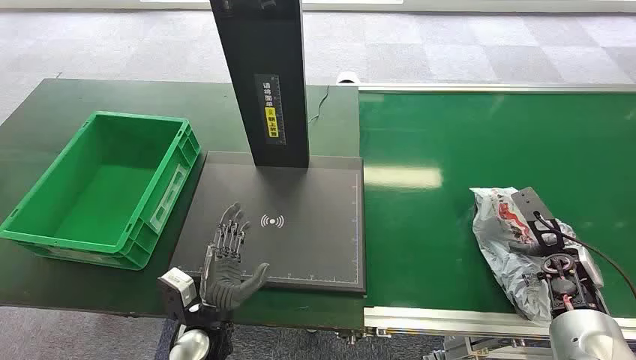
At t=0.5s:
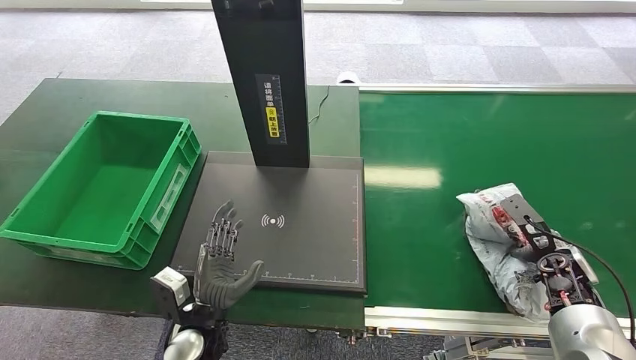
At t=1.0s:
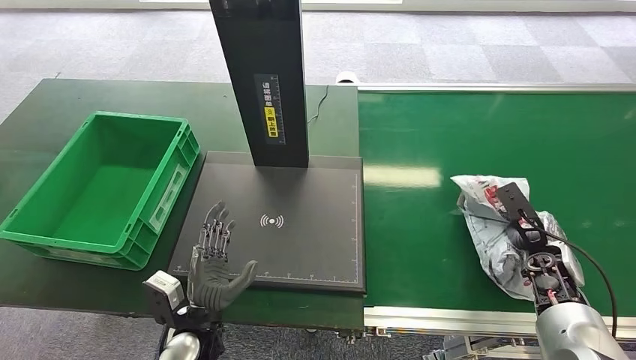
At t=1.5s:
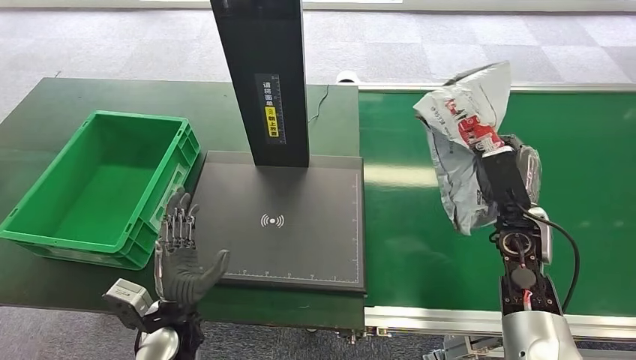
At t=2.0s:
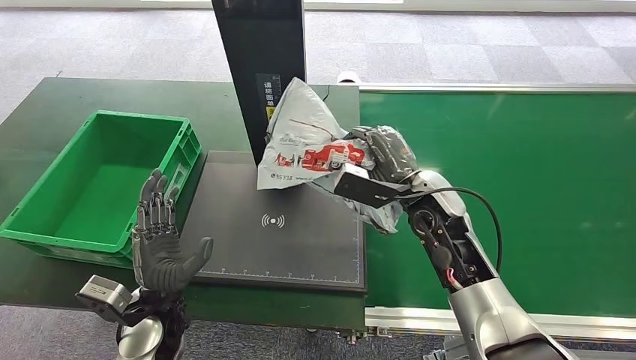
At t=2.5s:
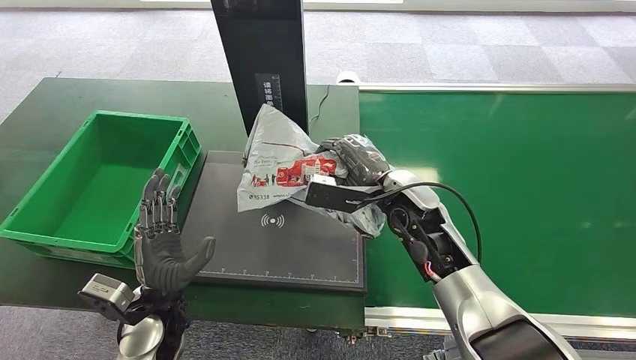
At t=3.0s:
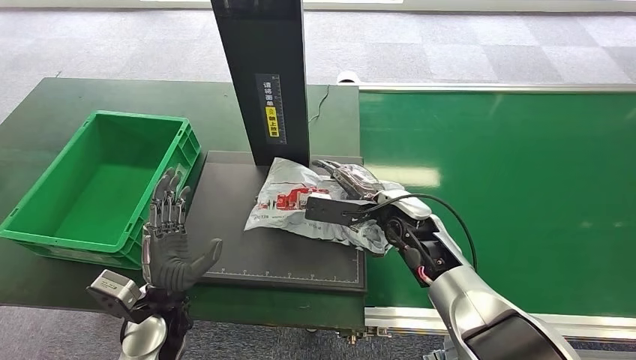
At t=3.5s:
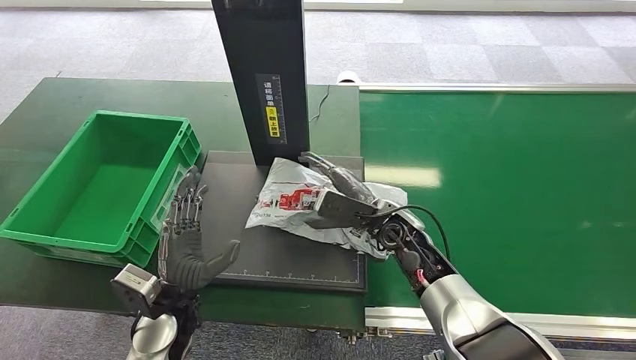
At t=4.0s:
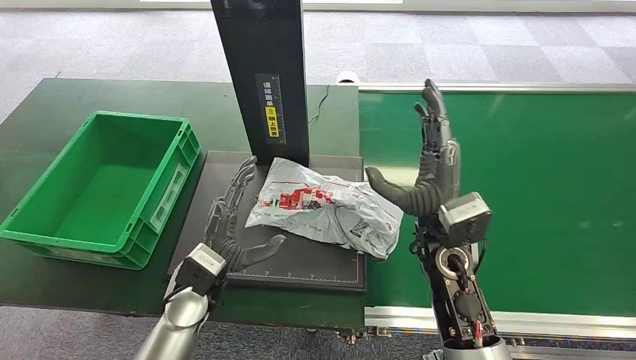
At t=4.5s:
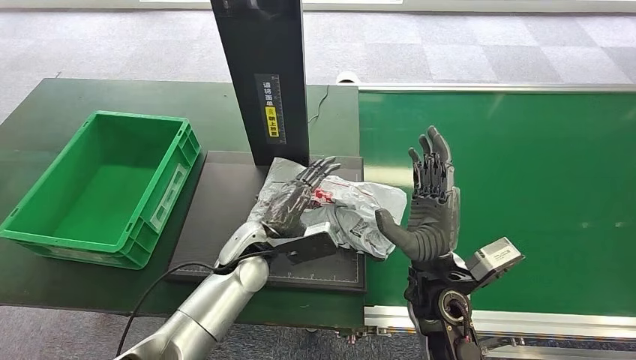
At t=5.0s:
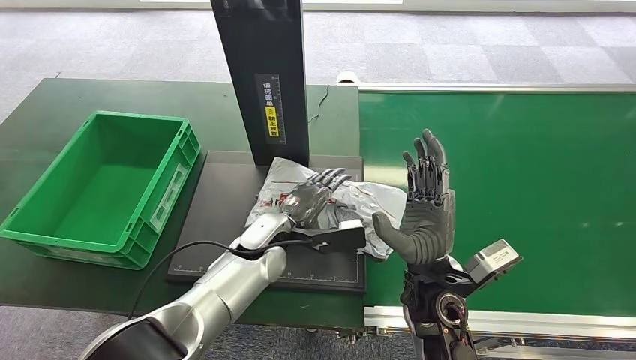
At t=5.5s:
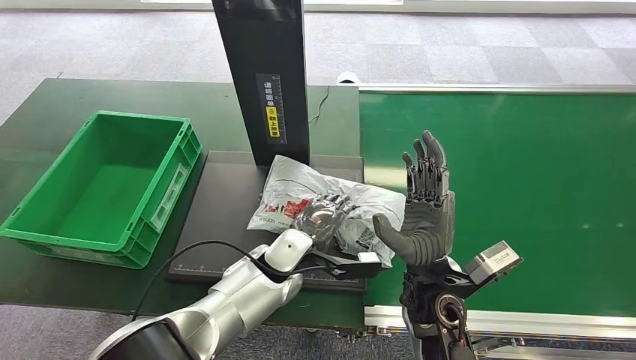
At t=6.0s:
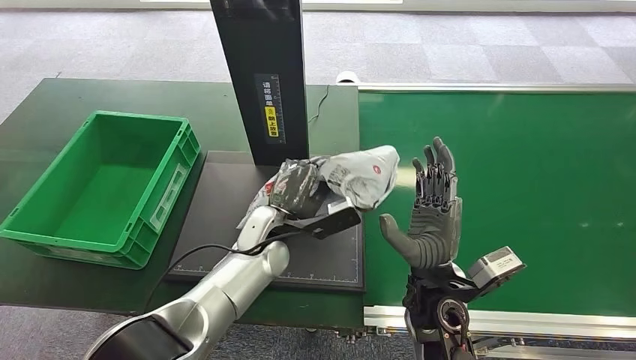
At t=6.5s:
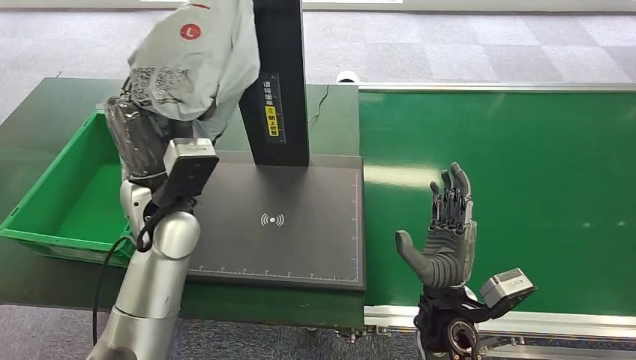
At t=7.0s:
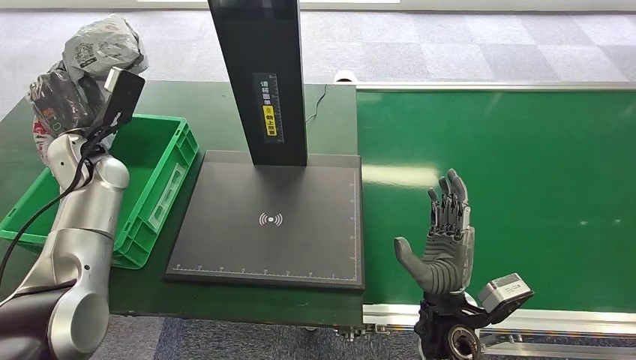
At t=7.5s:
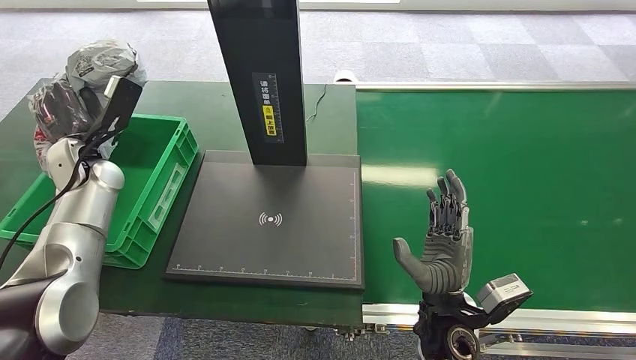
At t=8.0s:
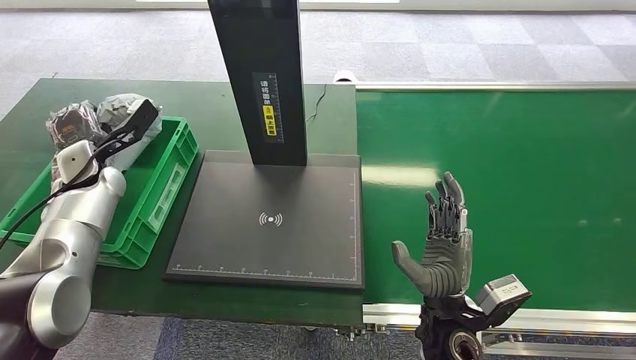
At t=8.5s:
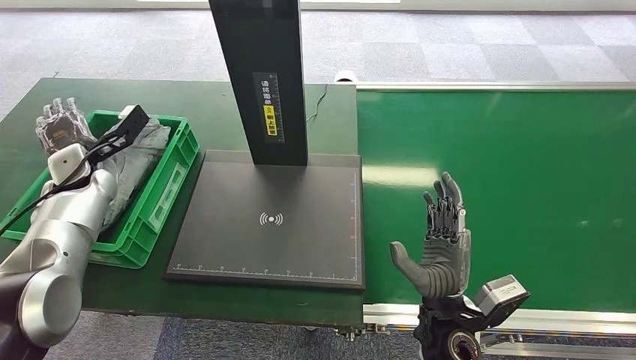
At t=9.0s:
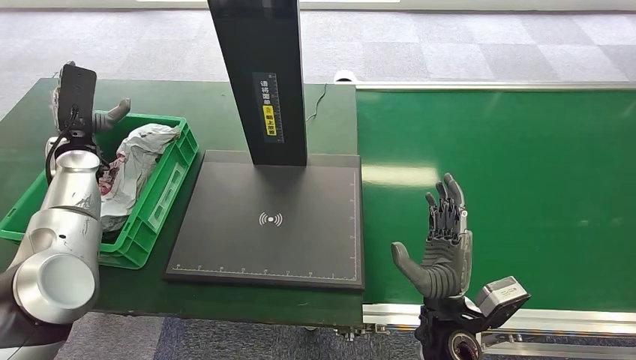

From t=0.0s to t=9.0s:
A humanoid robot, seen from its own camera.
Step, from t=0.0s to t=1.5s: Pick up the package from the conveyor belt.
Step, from t=2.0s to t=4.0s: Place the package onto the inbound machine.
Step, from t=4.5s to t=6.5s: Pick up the package from the inbound machine.
Step, from t=7.0s to t=9.0s: Place the package into the parcel locker.

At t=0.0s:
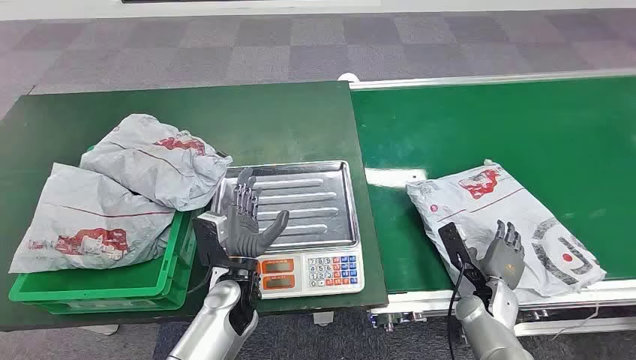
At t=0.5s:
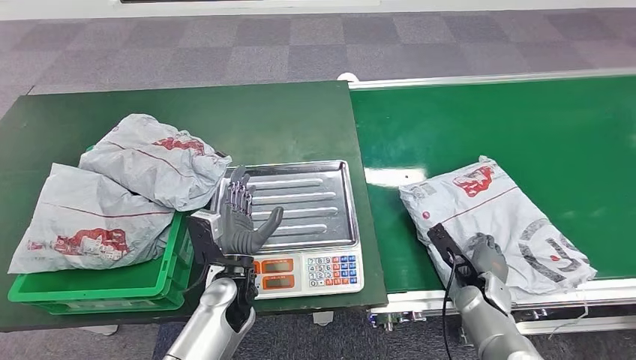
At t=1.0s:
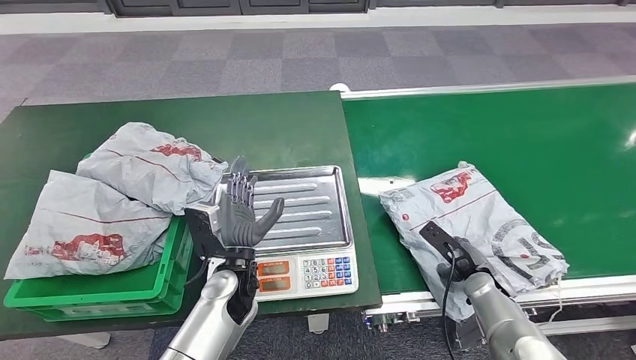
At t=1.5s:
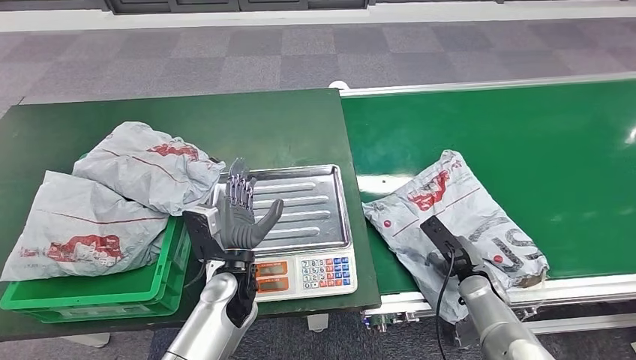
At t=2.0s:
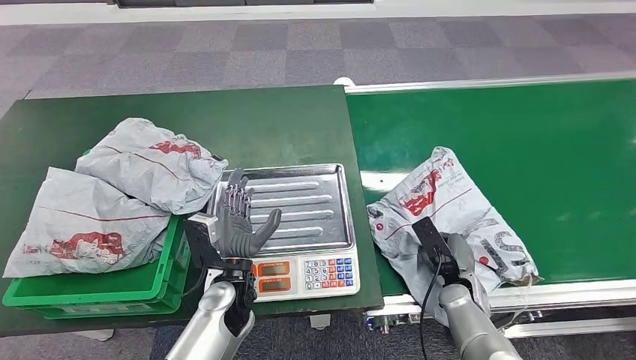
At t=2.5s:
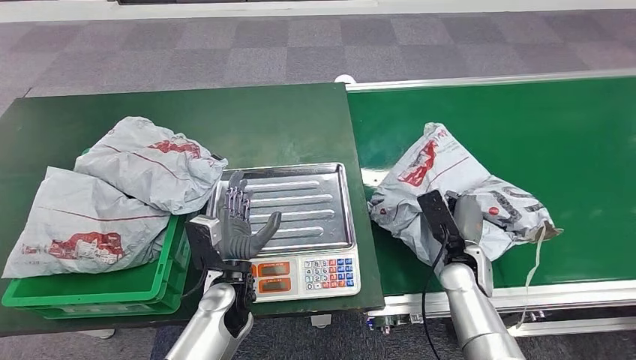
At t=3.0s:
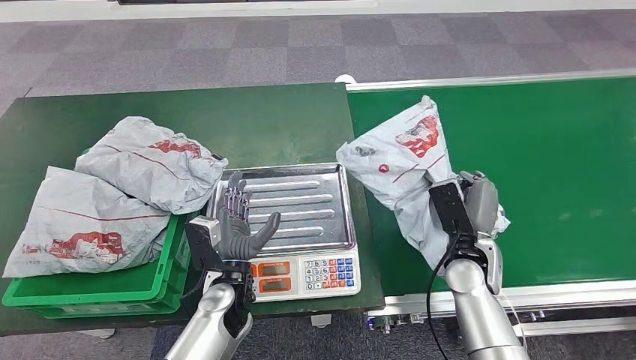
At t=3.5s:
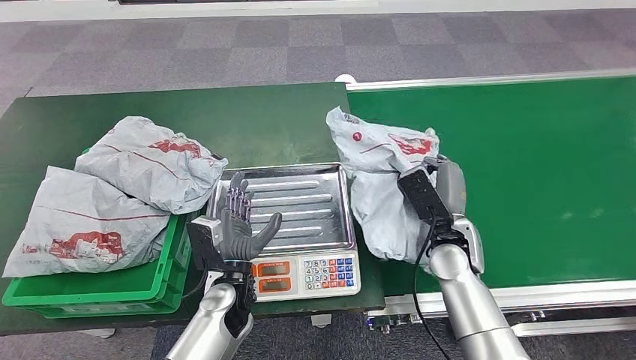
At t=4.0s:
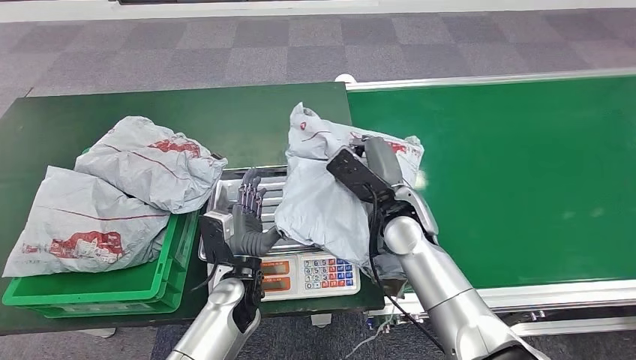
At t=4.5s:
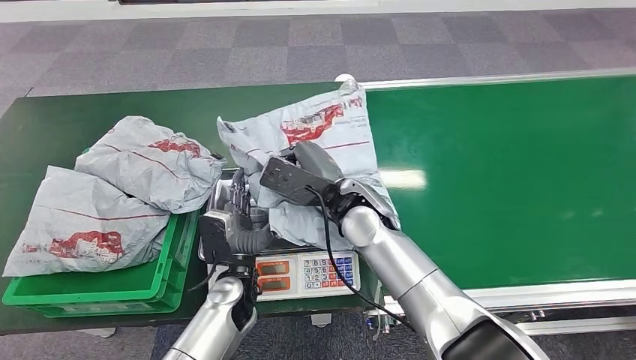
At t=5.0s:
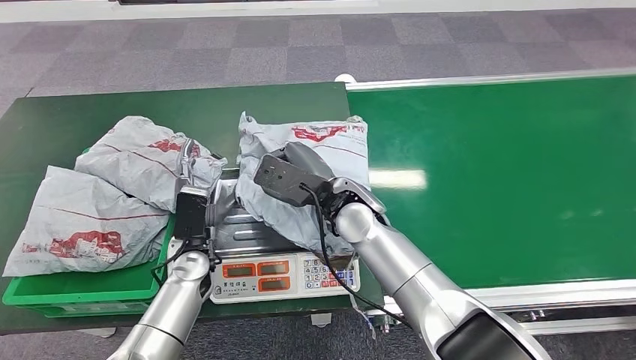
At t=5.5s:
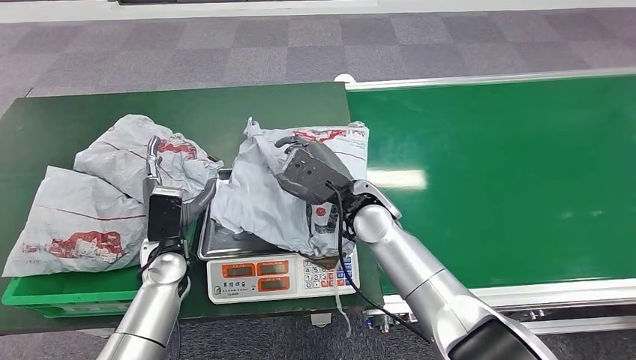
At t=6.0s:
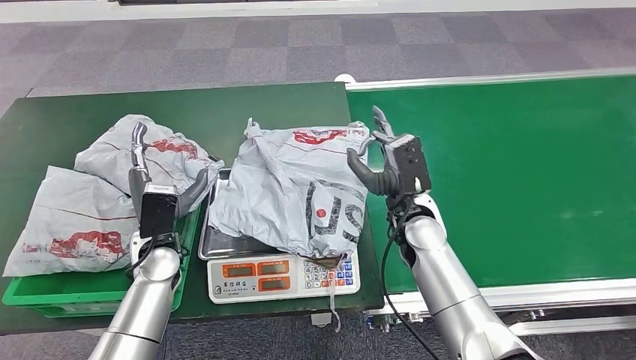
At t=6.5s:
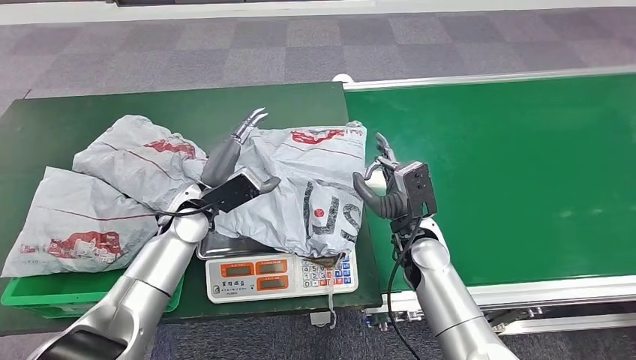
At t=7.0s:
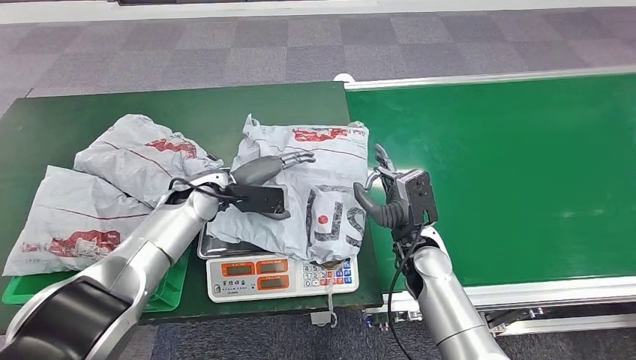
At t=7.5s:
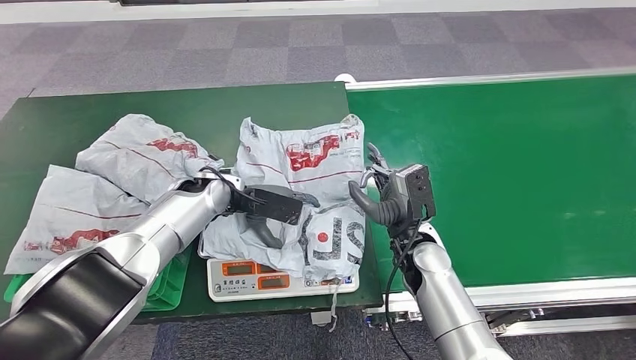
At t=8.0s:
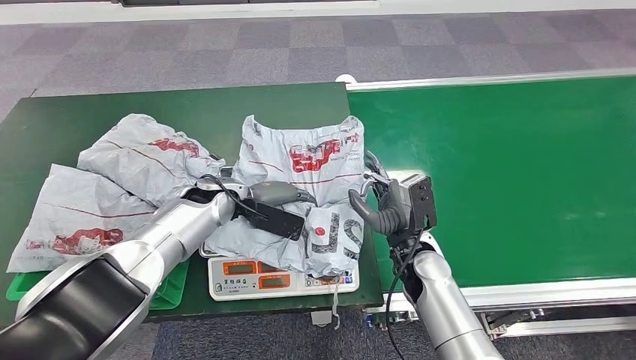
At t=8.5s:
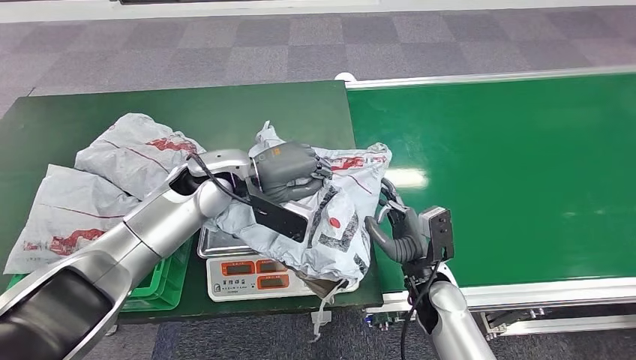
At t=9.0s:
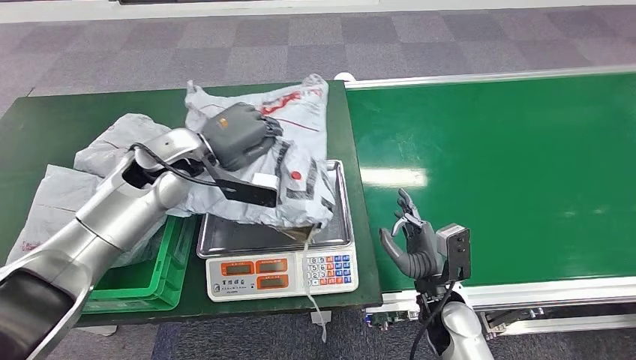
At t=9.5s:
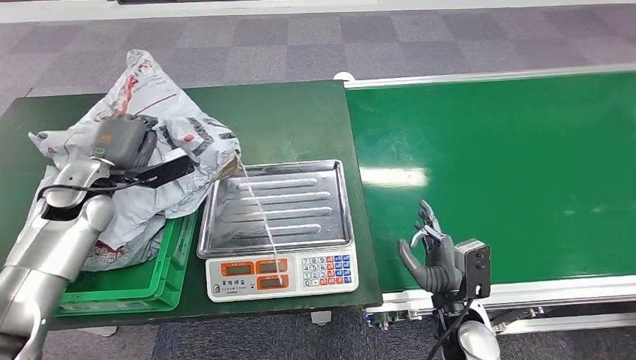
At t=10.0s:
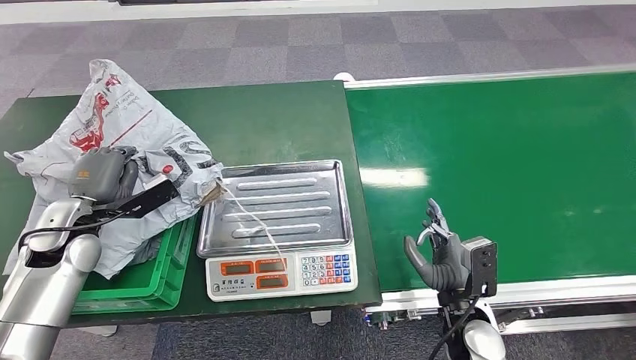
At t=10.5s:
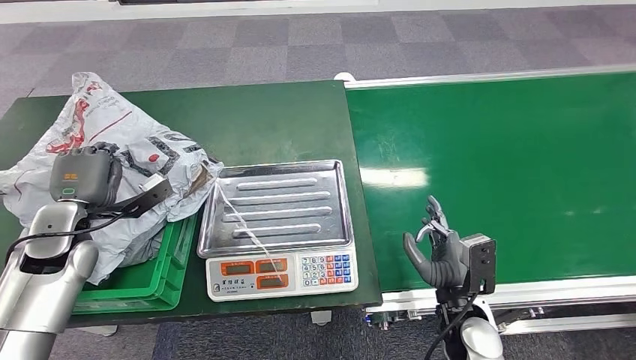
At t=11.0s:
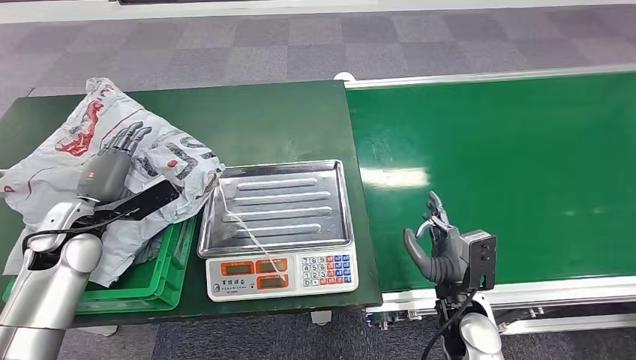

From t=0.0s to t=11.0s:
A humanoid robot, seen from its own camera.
Step, from t=0.0s to t=2.5s: Pick up the package from the conveyor belt.
Step, from t=3.0s to t=5.5s: Place the package onto the inbound machine.
Step, from t=6.0s to t=9.0s: Pick up the package from the inbound machine.
Step, from t=9.5s to t=10.5s: Place the package into the parcel locker.
From t=2.0s to t=3.5s: The right hand is displaced upward and to the left by approximately 15 cm.
